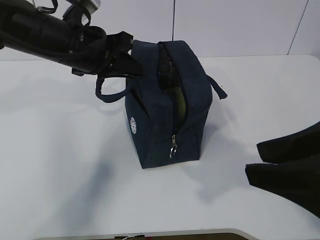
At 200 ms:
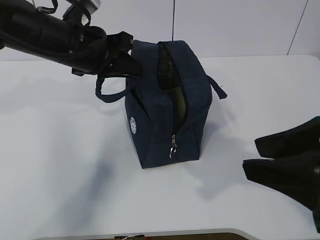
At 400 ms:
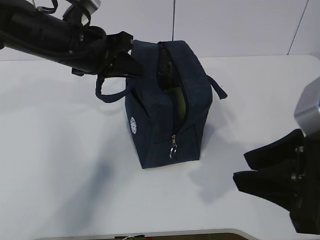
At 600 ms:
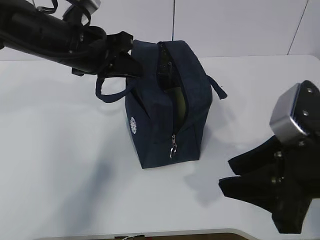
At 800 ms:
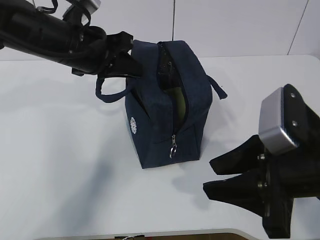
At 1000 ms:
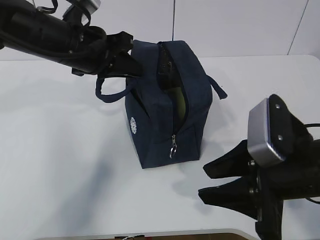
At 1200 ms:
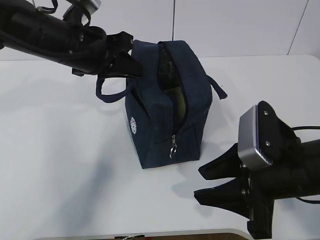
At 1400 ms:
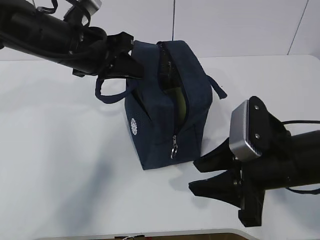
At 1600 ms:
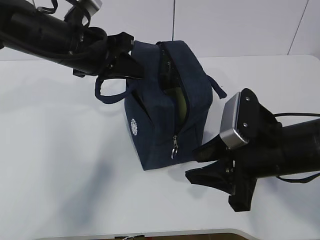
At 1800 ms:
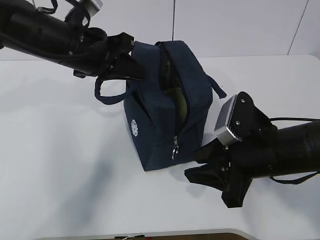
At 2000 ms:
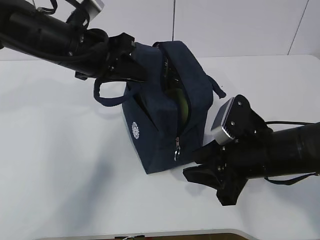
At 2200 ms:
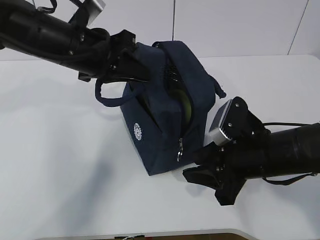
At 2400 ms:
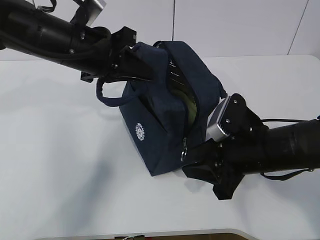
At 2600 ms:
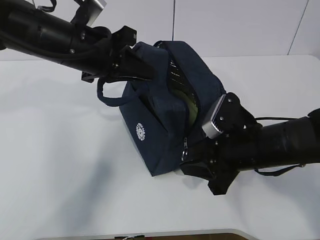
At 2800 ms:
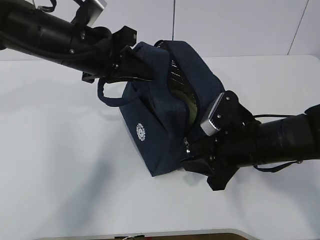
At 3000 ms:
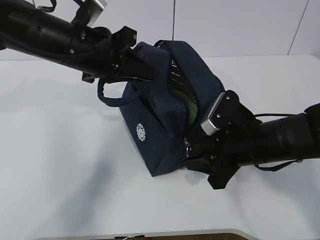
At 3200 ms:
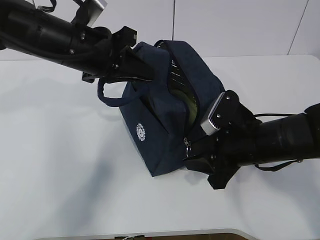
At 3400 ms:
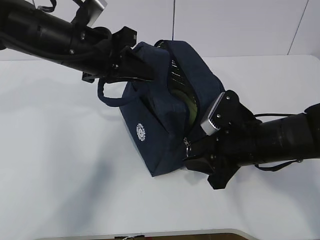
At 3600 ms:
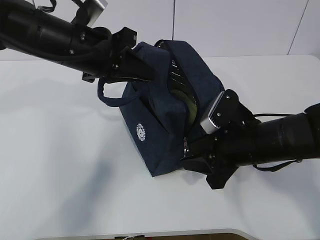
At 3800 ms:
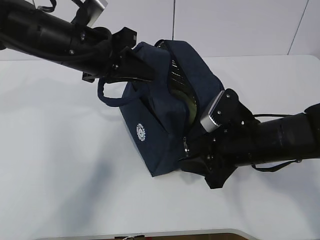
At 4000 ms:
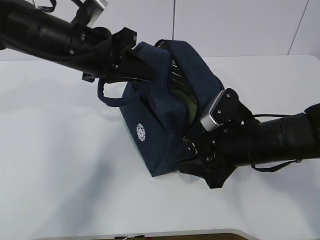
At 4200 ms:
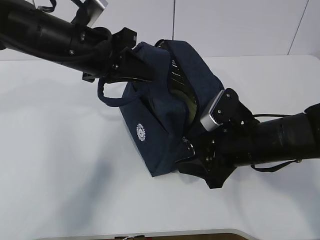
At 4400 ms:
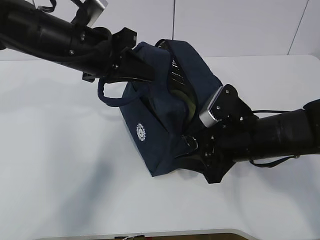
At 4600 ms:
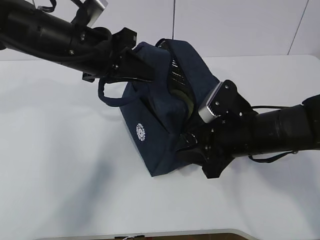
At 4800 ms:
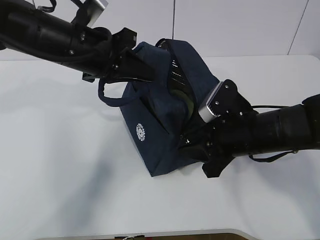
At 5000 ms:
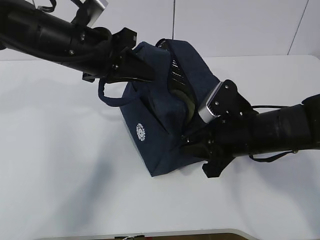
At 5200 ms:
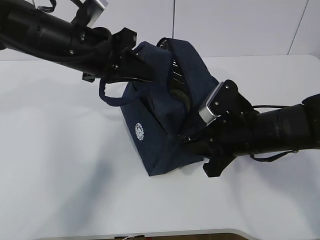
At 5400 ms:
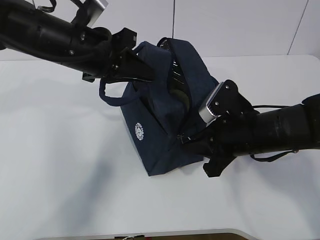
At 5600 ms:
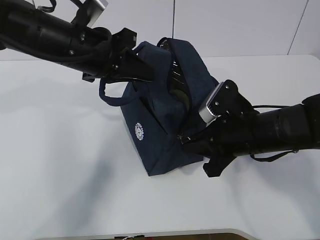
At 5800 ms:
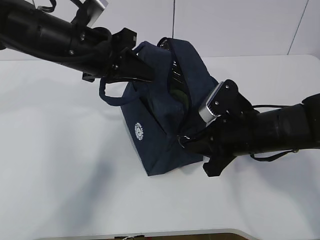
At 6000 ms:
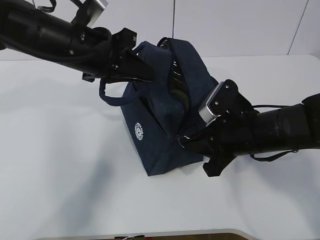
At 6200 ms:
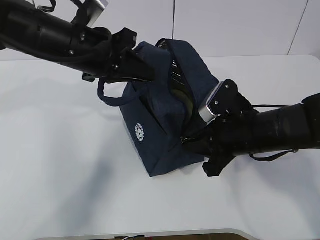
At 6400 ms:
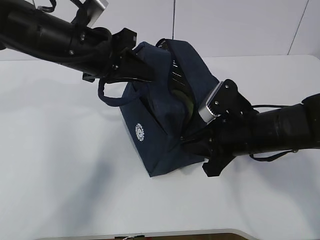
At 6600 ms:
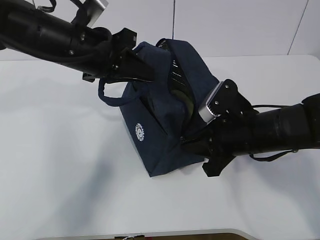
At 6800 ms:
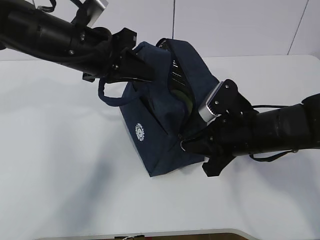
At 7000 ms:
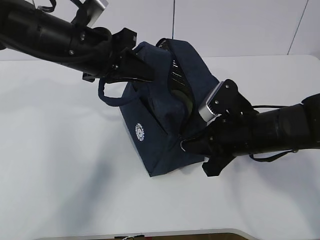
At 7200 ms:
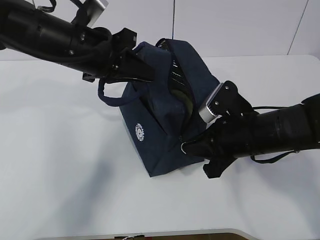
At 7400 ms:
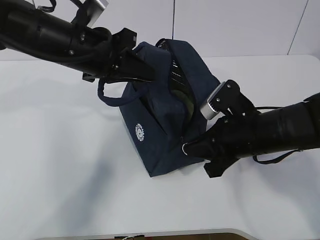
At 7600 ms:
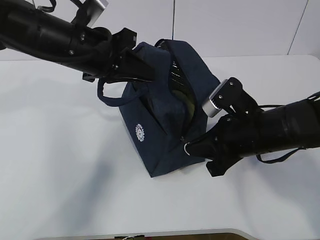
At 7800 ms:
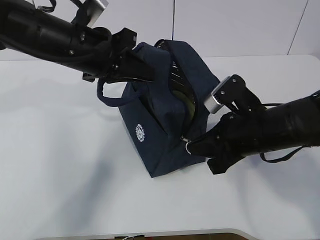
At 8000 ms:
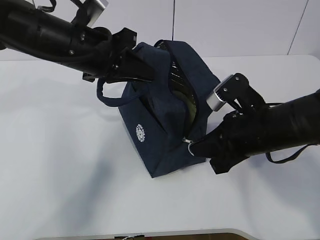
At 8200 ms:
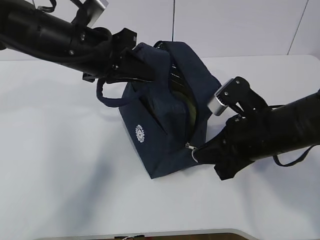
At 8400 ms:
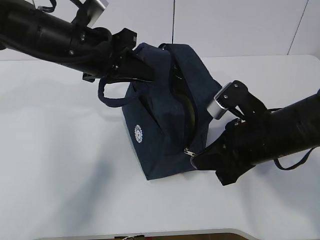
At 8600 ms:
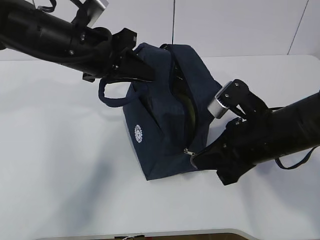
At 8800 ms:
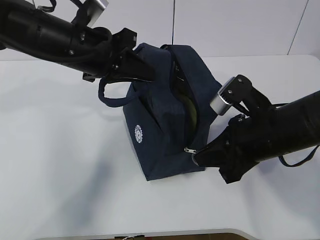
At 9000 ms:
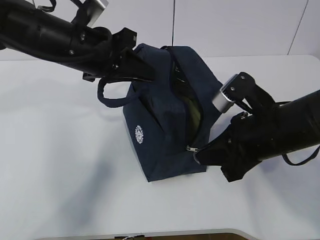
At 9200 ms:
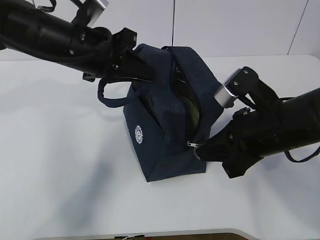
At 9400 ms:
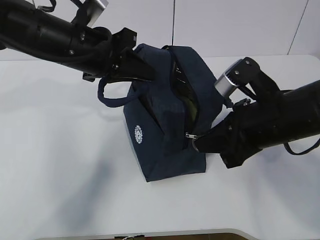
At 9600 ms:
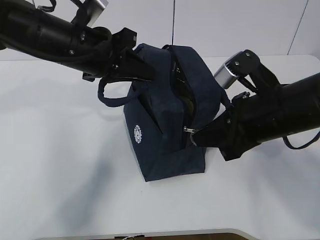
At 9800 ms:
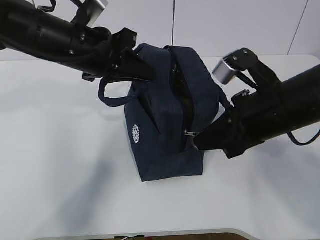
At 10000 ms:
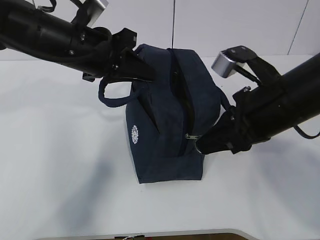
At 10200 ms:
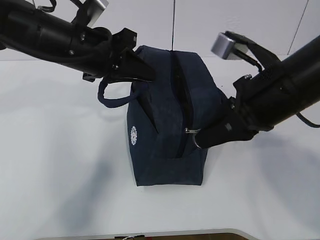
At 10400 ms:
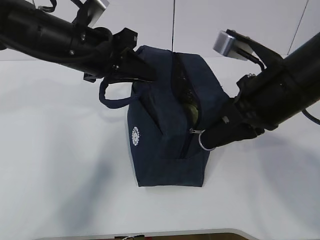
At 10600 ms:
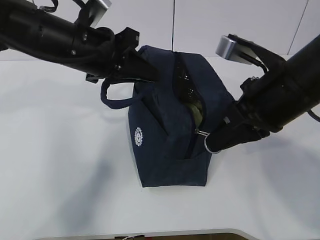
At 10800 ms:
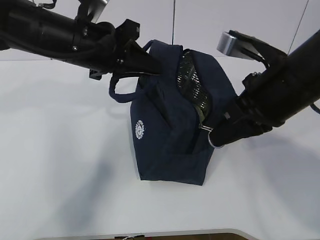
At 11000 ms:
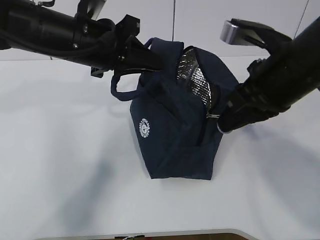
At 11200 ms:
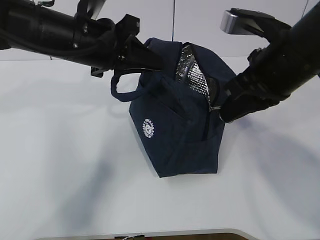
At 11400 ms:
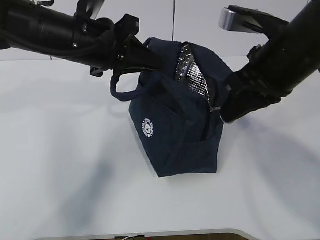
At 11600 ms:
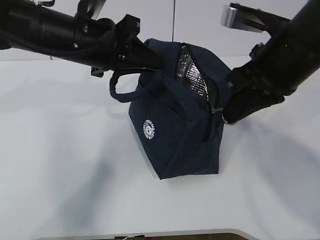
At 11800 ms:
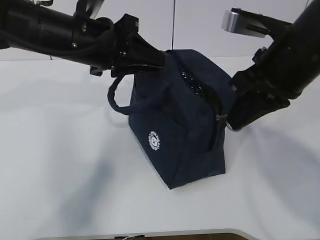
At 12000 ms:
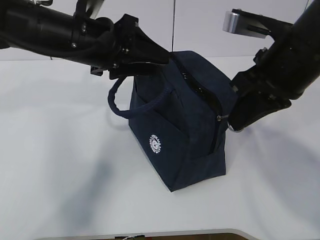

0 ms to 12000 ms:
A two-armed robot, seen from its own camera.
0 ms to 1600 ms: The right gripper heads forward and downward, covering roughly 15 cm.
1600 ms to 3000 ms: The right gripper changes place by about 5 cm.
3000 ms to 4400 ms: The grippers stay close to where they were, moving slightly.
4400 ms to 6000 ms: The right gripper closes up.
6000 ms to 9000 ms: The grippers make only small movements.
9000 ms to 10400 ms: The right gripper heads upward, covering roughly 5 cm.
10400 ms to 12000 ms: The left gripper opens.

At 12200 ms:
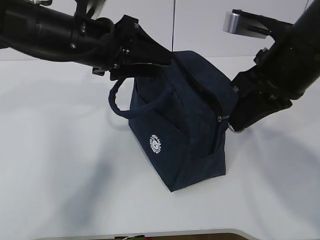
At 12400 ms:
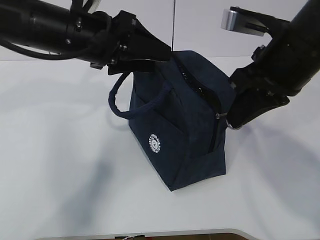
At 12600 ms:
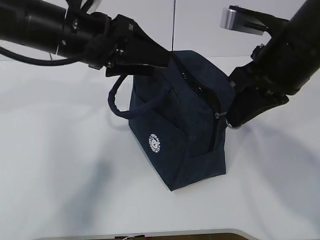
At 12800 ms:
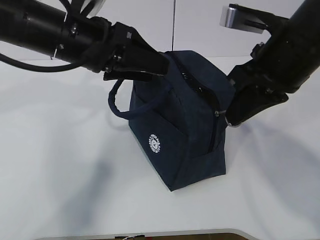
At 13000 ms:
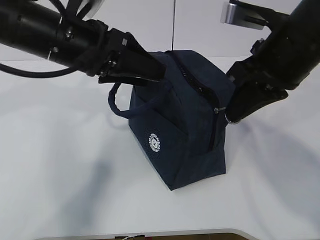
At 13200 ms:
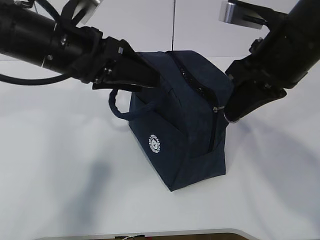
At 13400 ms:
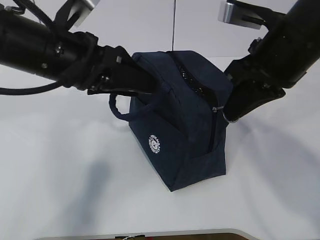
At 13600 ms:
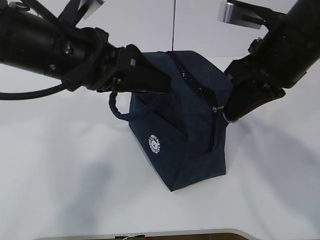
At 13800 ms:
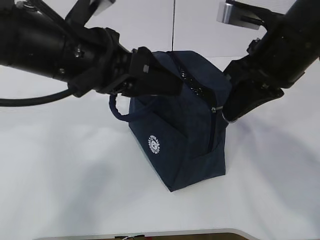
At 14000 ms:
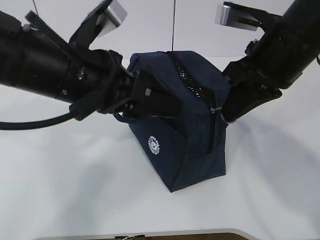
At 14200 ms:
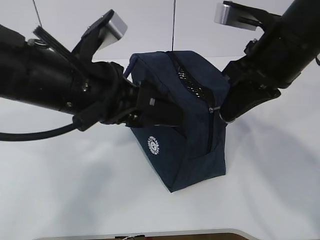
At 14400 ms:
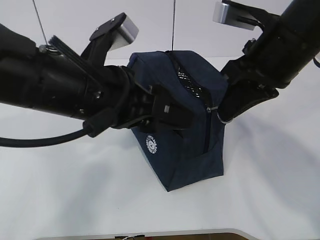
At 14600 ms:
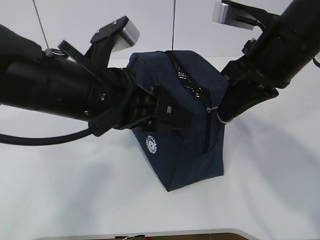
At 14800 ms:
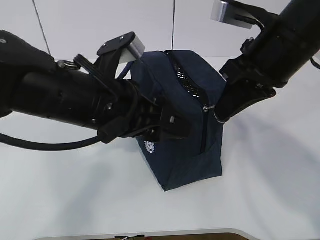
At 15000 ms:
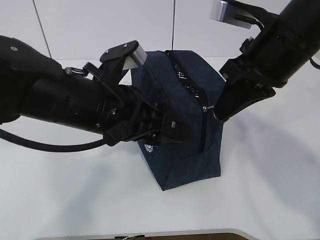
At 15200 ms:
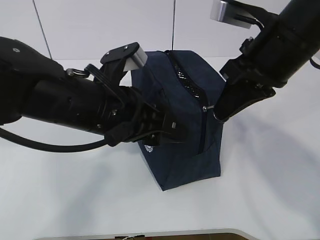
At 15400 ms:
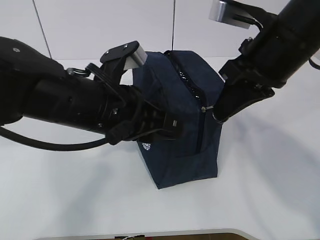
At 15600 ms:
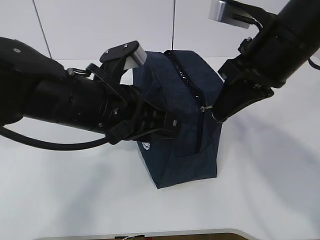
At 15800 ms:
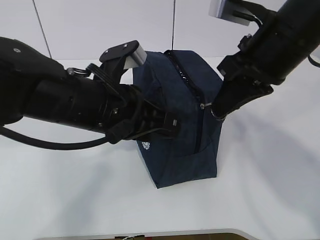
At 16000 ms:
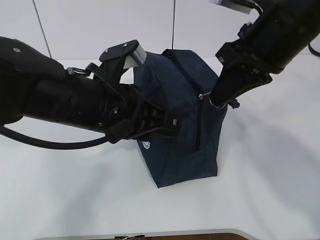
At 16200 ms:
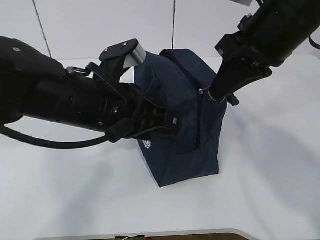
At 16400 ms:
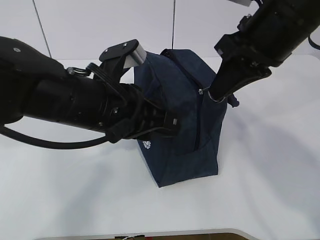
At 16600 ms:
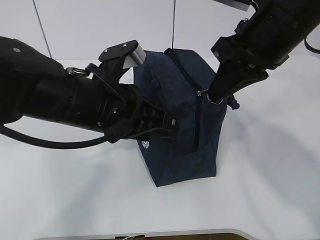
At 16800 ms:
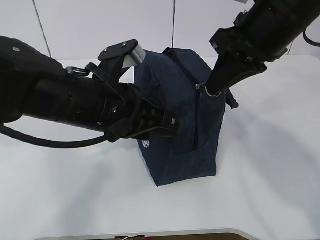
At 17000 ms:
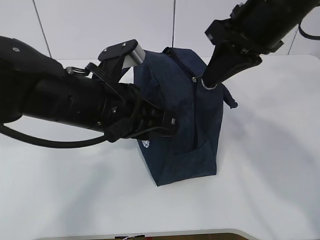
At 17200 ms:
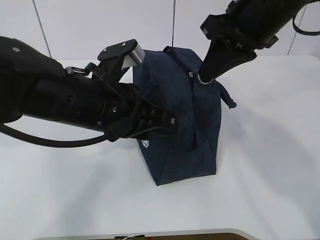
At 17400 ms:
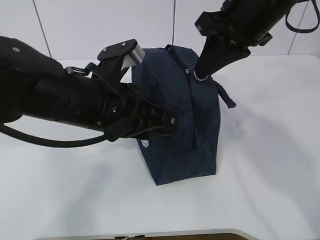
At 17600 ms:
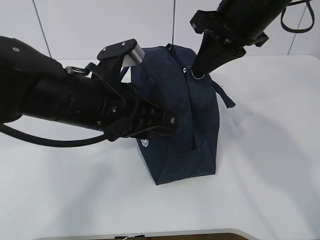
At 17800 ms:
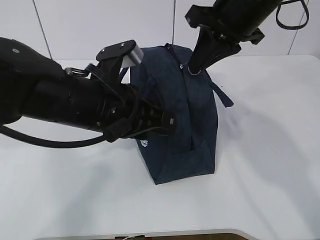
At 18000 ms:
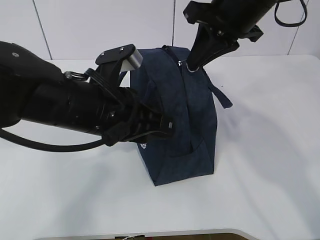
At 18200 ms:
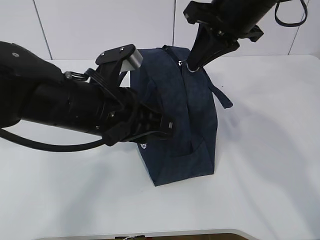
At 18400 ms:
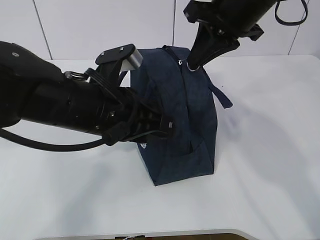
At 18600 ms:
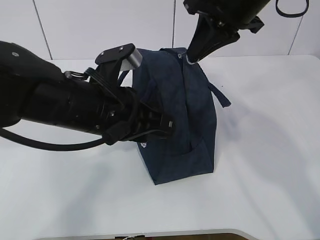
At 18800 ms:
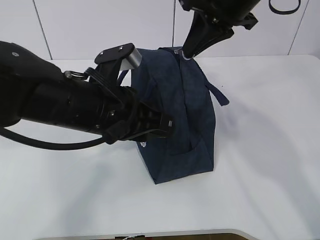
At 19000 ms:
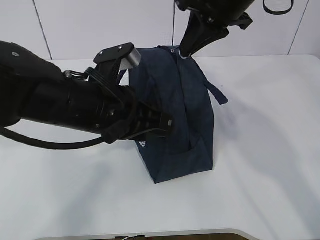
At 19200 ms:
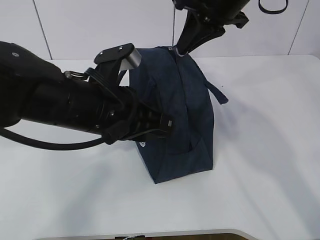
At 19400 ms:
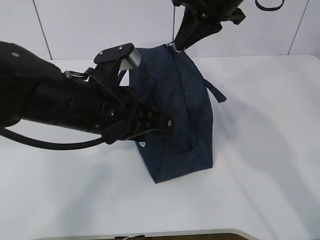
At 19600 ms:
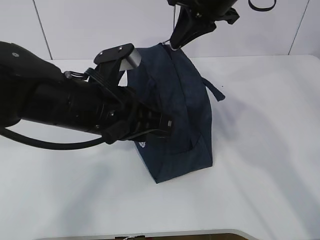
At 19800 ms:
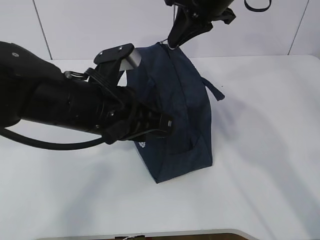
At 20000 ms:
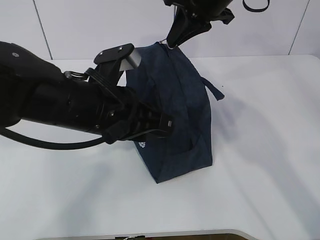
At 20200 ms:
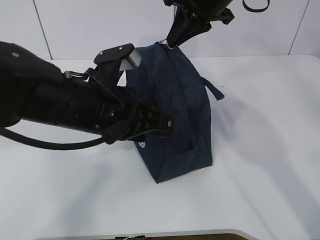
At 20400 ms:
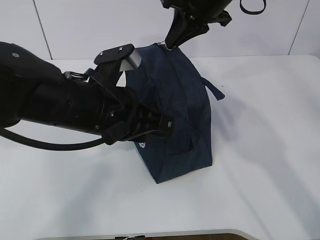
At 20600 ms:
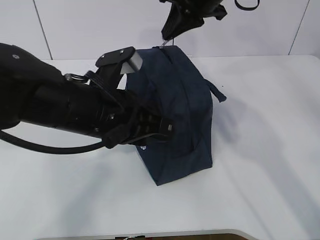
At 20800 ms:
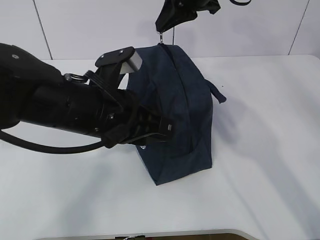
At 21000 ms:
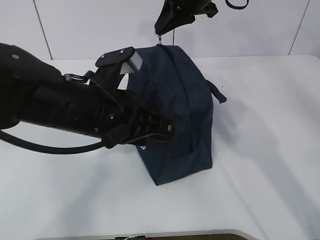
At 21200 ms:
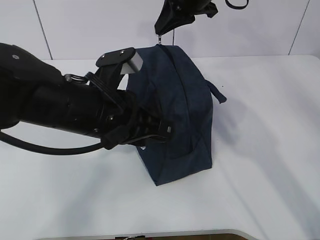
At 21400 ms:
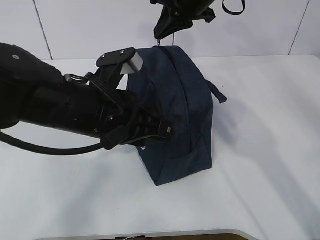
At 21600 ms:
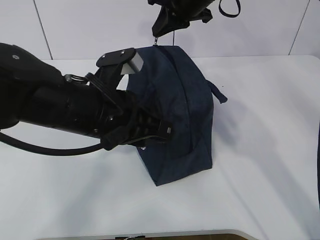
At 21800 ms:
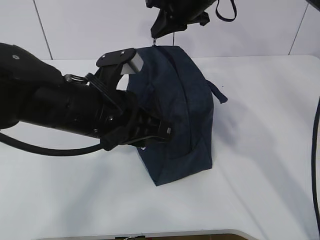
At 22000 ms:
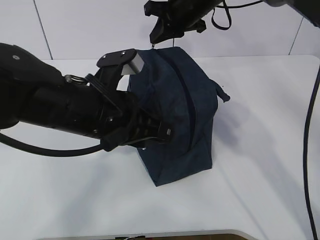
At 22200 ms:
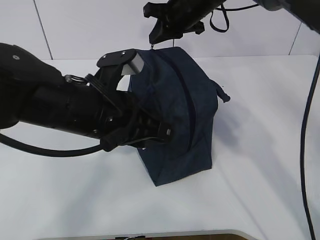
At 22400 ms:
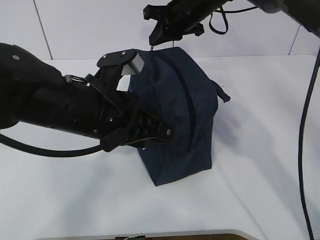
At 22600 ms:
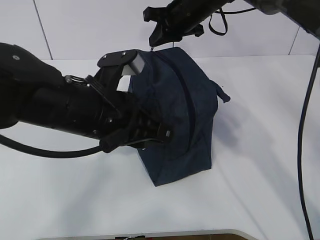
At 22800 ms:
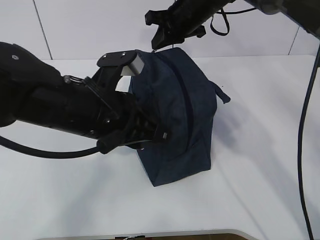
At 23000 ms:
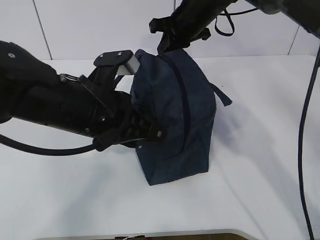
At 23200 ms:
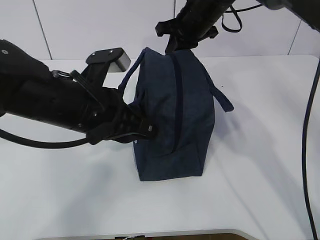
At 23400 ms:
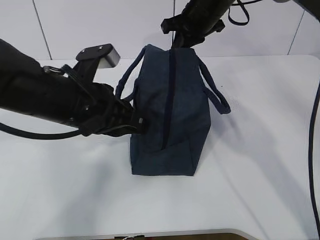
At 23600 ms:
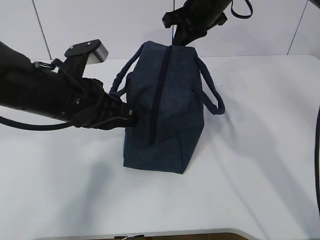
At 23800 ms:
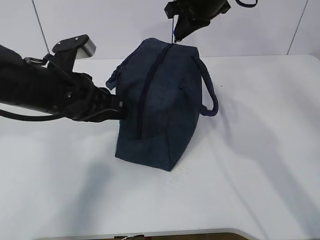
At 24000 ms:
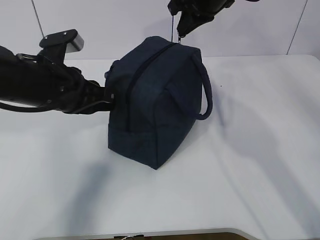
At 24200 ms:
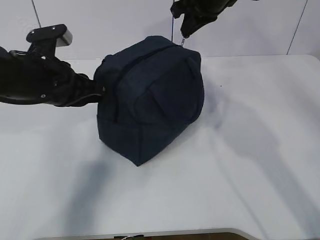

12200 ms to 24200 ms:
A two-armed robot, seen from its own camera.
12200 ms to 13800 ms: The left gripper shifts roughly 10 cm backward.
13800 ms to 15200 ms: The left gripper moves downward, some 5 cm.
15200 ms to 16600 ms: The left gripper closes.
16600 ms to 18200 ms: The right gripper shifts roughly 5 cm forward.
18200 ms to 19800 ms: The right gripper shifts about 5 cm forward.
19800 ms to 21200 ms: The grippers stay close to where they were, moving slightly.
21200 ms to 22600 ms: The right gripper is displaced downward by about 5 cm.
22600 ms to 24200 ms: The left gripper shifts some 10 cm to the left and forward. The right gripper changes place by approximately 5 cm.
